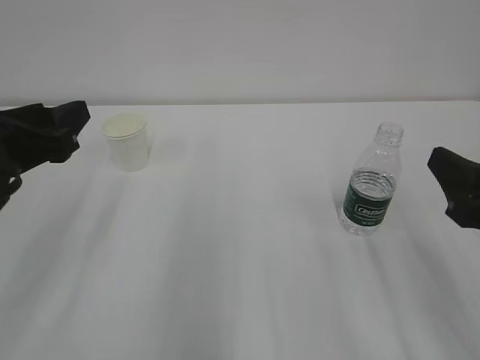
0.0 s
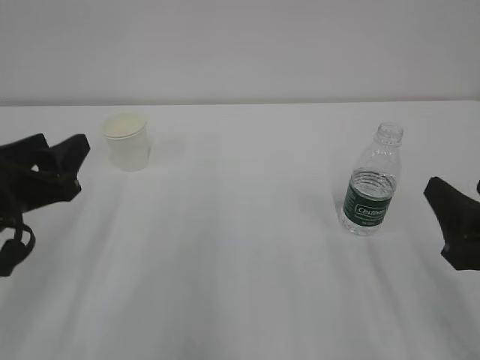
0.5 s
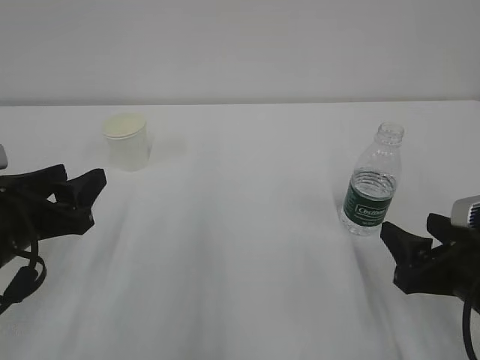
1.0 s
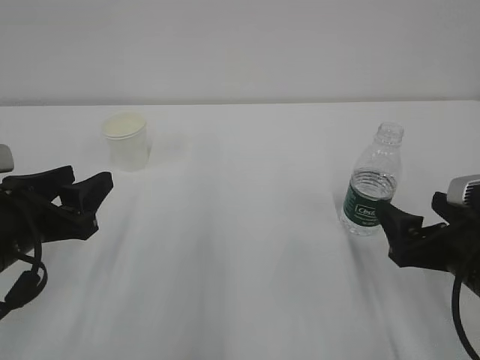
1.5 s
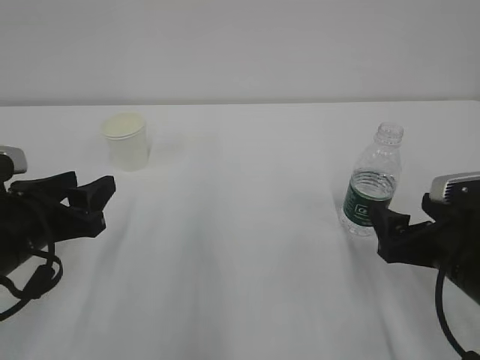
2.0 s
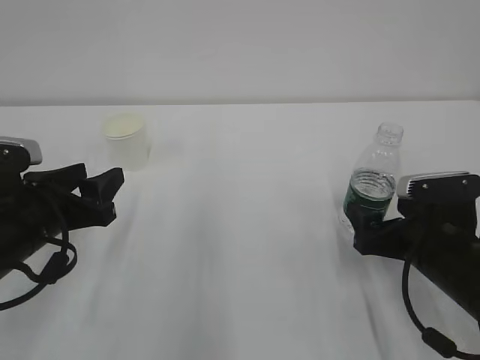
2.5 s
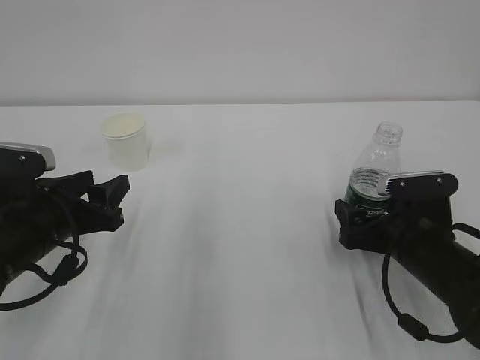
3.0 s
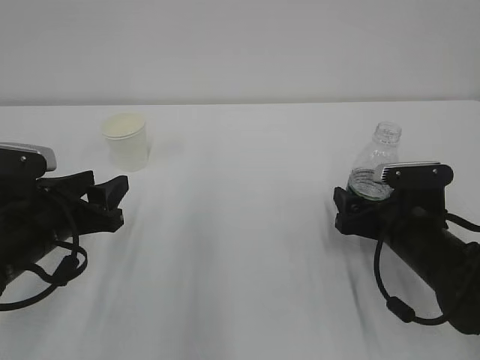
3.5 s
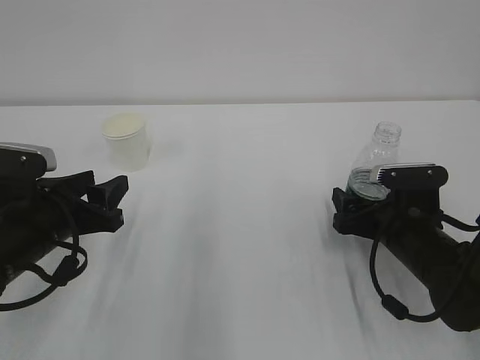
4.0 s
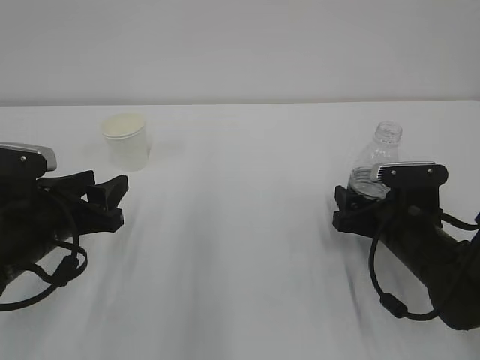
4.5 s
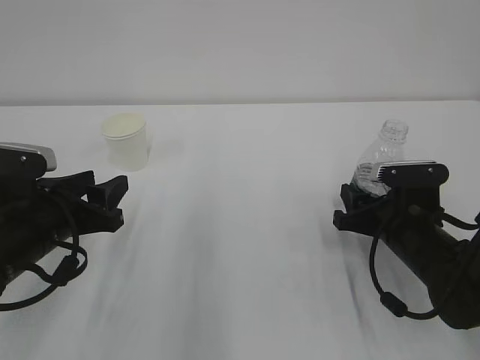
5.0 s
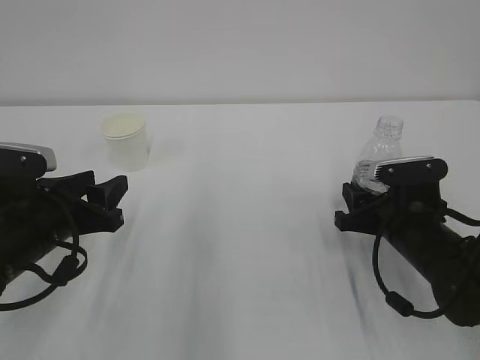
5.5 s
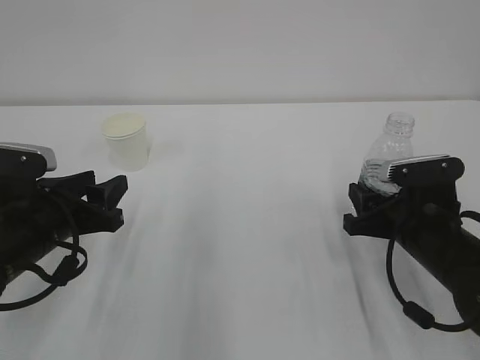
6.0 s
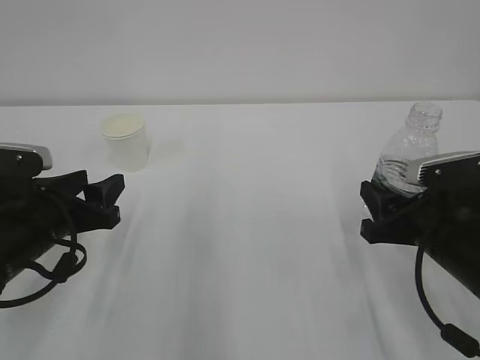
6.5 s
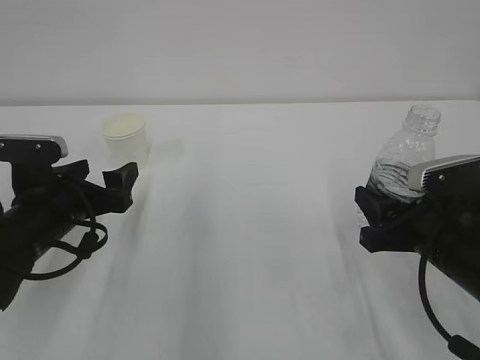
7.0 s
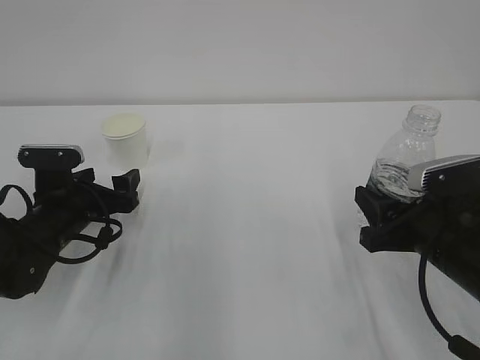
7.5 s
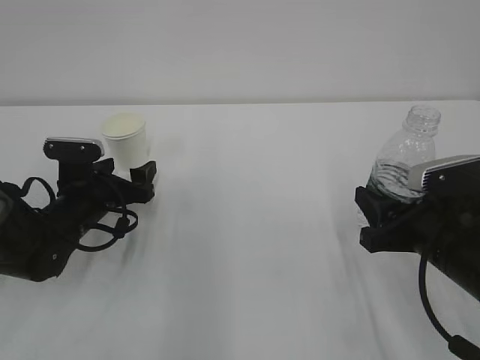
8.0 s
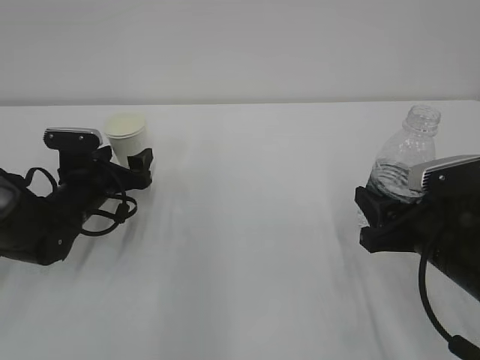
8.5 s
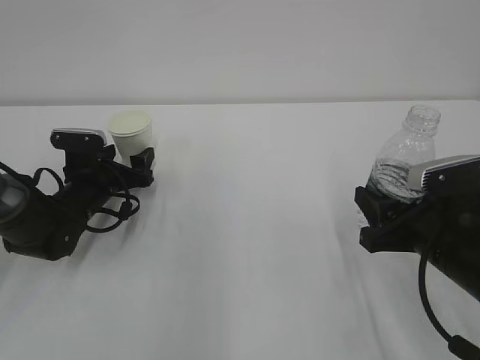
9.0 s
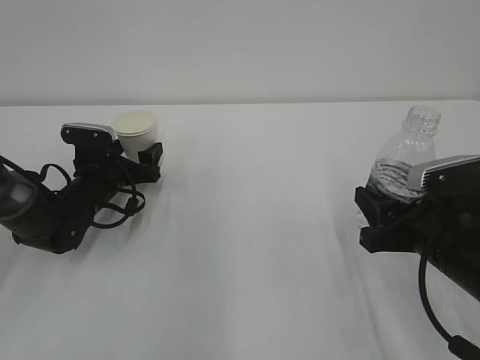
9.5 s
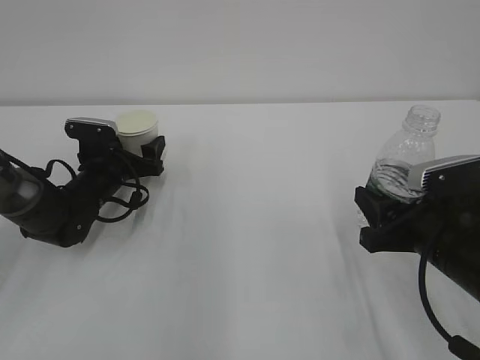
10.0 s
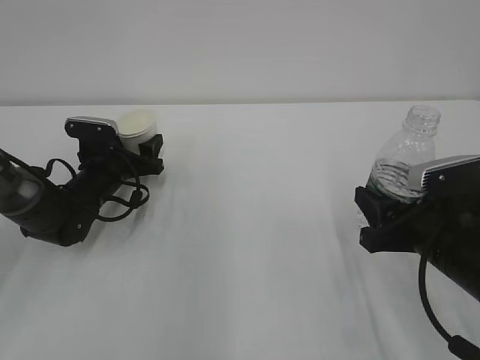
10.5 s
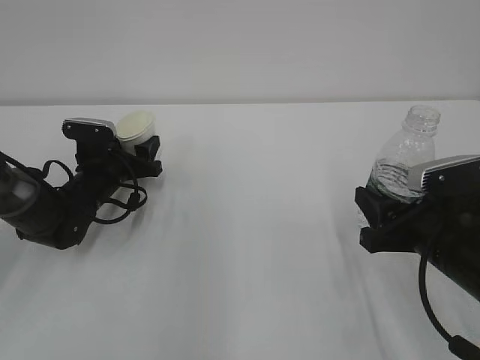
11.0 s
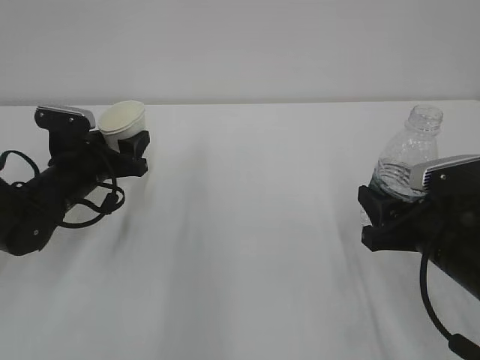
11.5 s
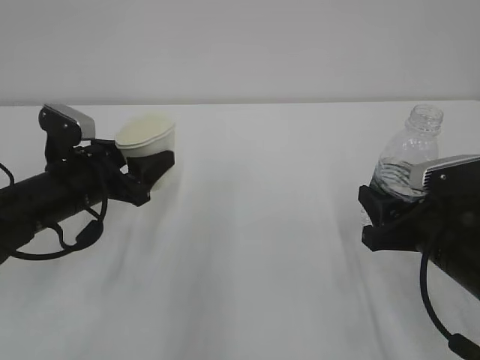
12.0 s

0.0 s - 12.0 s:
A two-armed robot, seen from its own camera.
0.0 s - 2.0 s: The grippers both shift downward by some 10 cm. The right gripper opens.
2.0 s - 4.0 s: The right gripper moves forward and downward, approximately 10 cm.
4.0 s - 6.0 s: The right gripper closes its fingers.
6.0 s - 8.0 s: The right gripper changes place by about 5 cm. Meanwhile the left gripper travels forward and downward by some 10 cm, and opens up.
8.0 s - 10.0 s: The left gripper travels forward by about 5 cm.
10.0 s - 12.0 s: The left gripper travels backward and upward by roughly 15 cm, and closes its fingers.

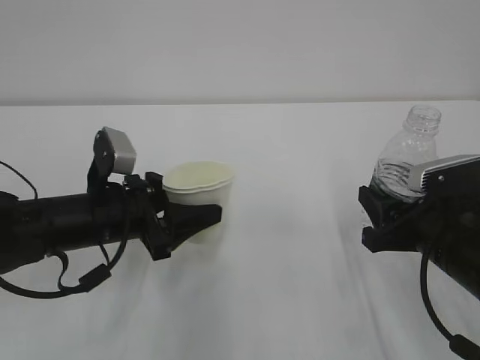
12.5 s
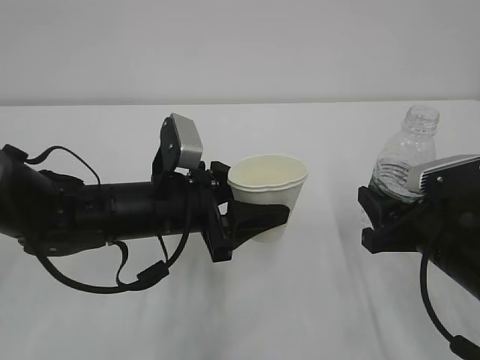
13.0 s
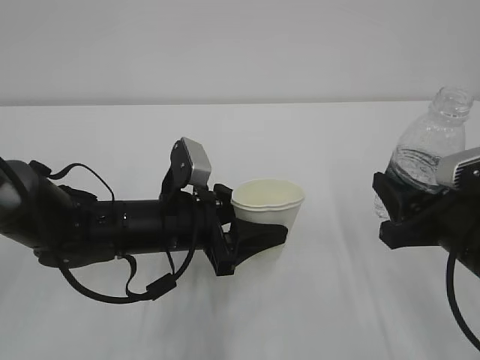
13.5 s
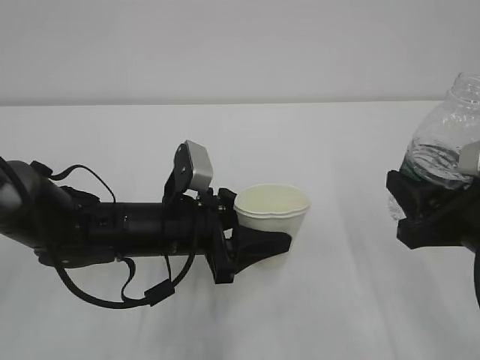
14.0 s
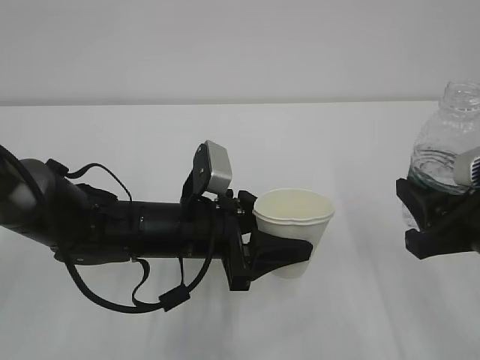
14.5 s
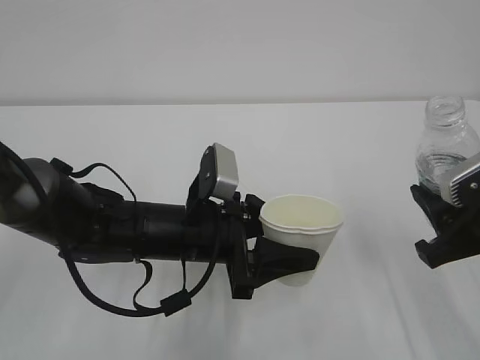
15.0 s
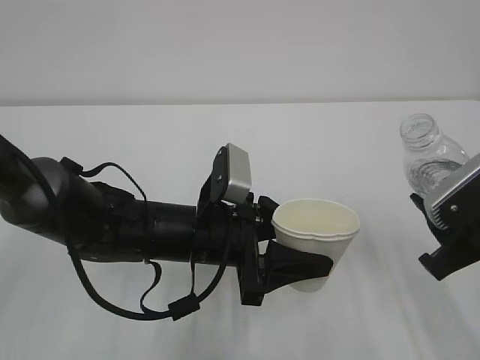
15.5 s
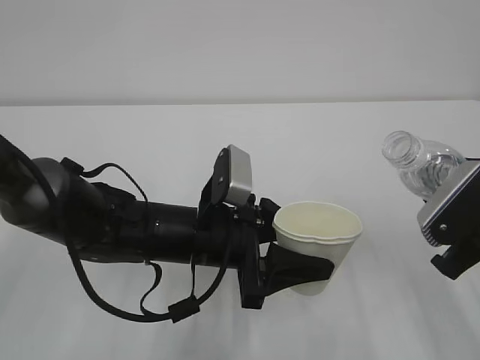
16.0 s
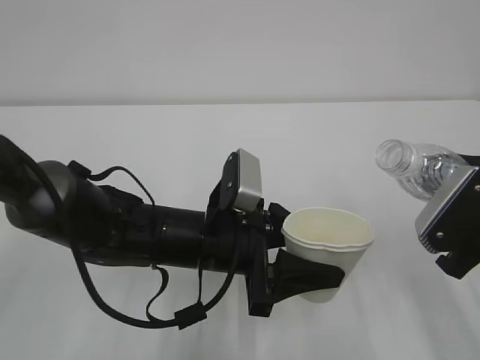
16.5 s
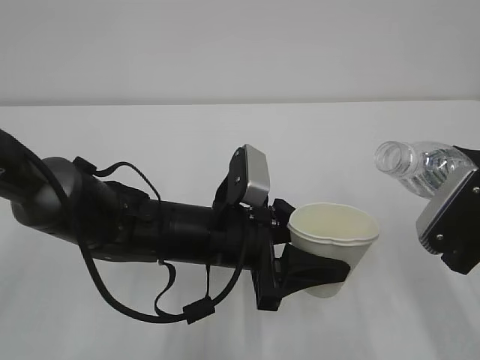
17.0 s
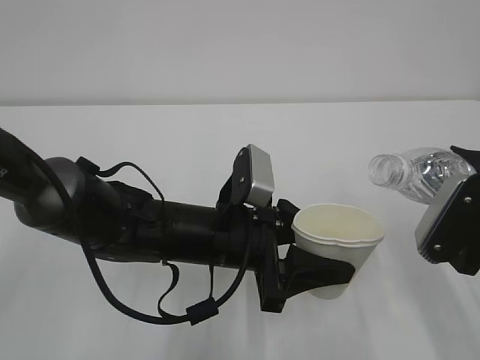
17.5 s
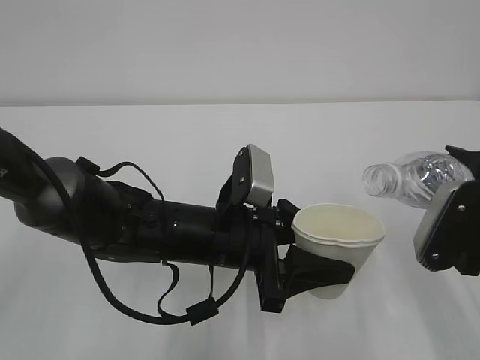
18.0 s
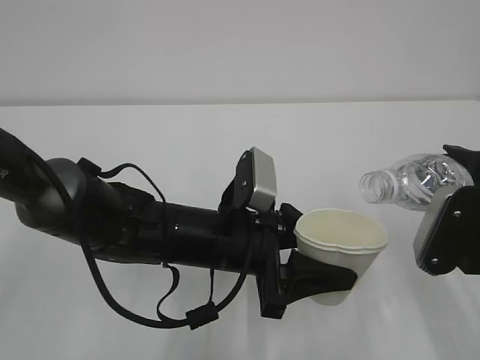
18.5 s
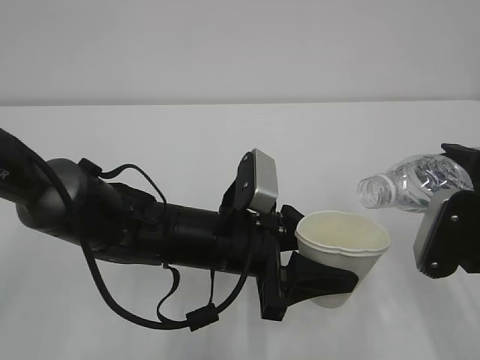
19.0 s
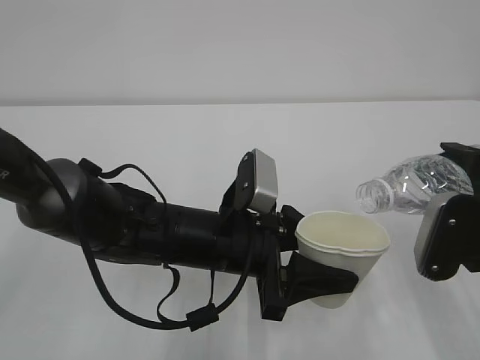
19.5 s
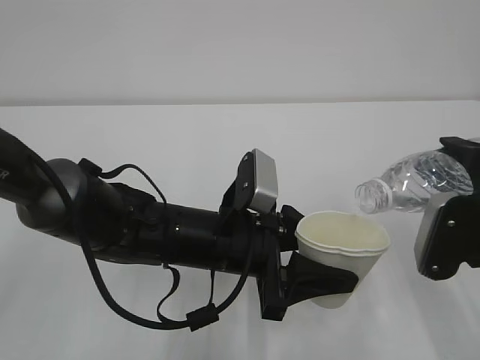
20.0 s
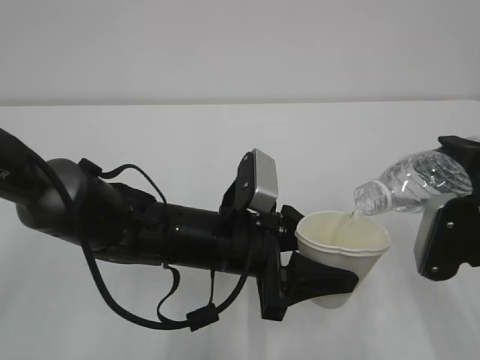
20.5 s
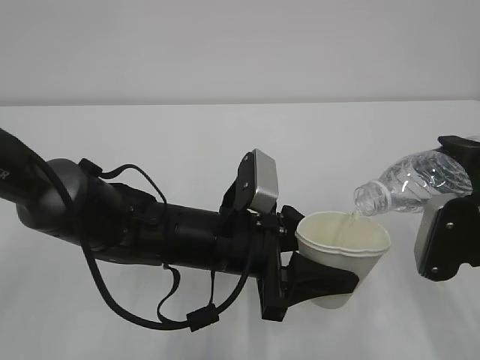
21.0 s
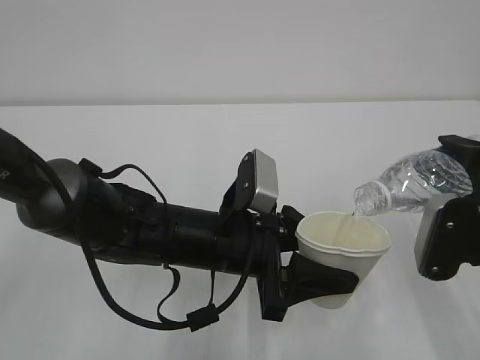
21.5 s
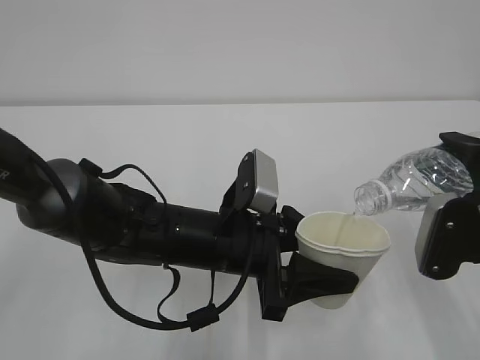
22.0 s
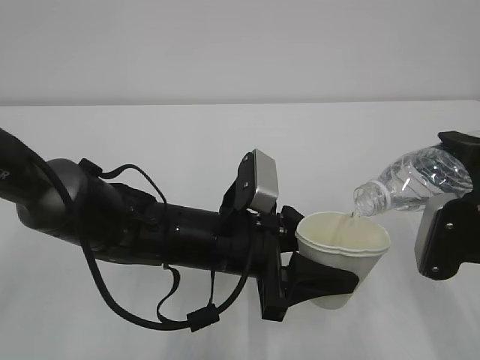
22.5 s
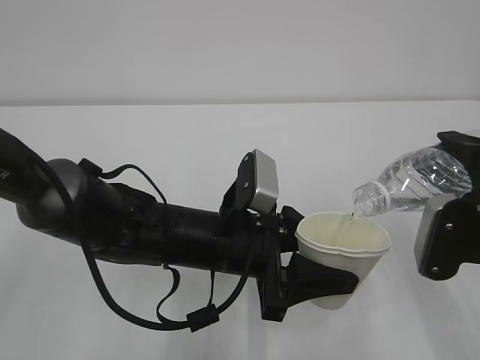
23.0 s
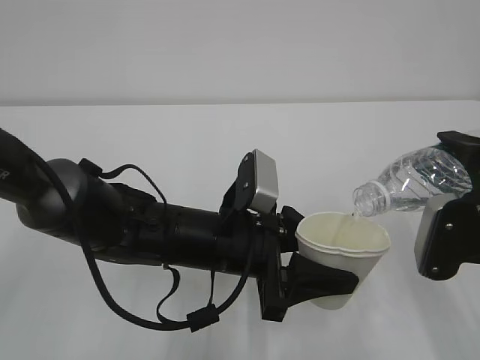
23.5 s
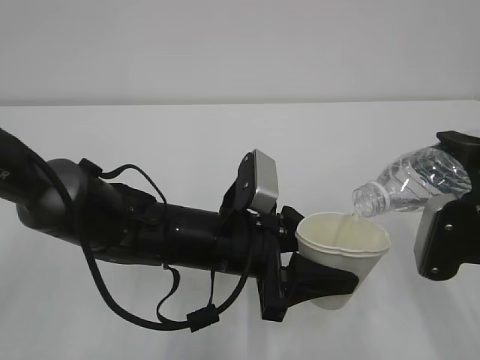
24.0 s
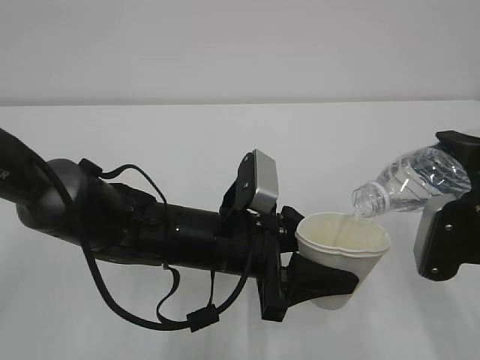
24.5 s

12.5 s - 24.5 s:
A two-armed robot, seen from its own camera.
12.5 s - 14.5 s: The right gripper heads upward, covering some 5 cm. Meanwhile the left gripper heads to the right, covering approximately 10 cm.
16.5 s - 18.5 s: The grippers make only small movements.
18.5 s - 20.5 s: The grippers stay close to where they were, moving slightly.
20.5 s - 24.5 s: Neither gripper changes place.

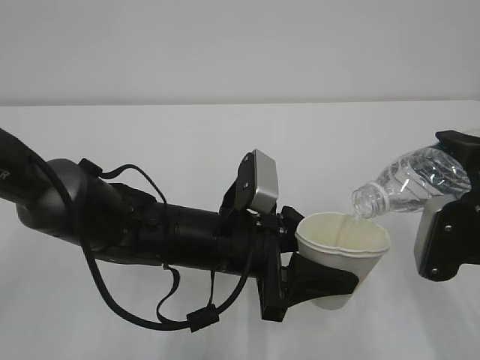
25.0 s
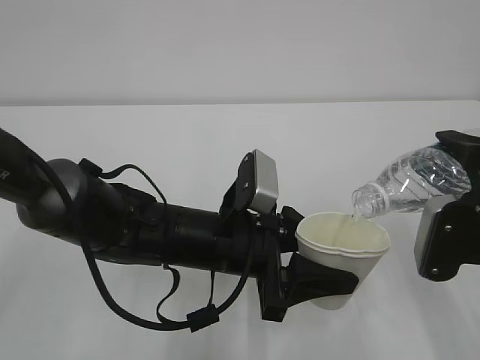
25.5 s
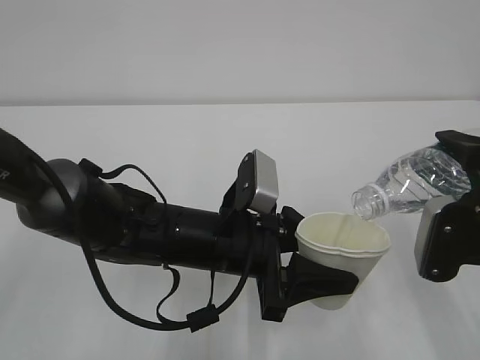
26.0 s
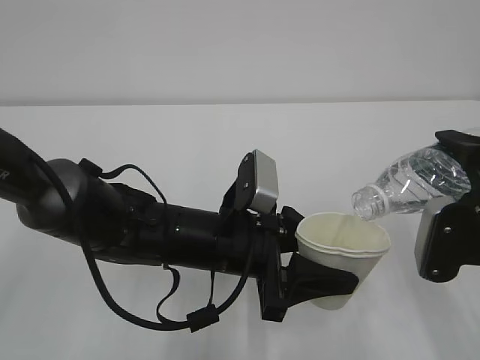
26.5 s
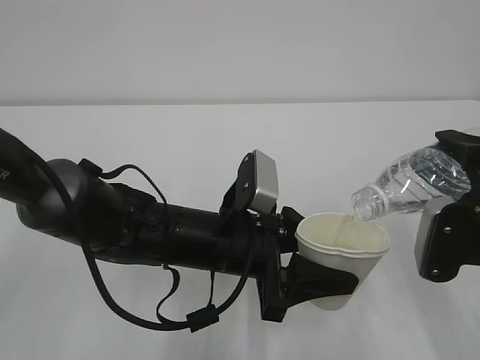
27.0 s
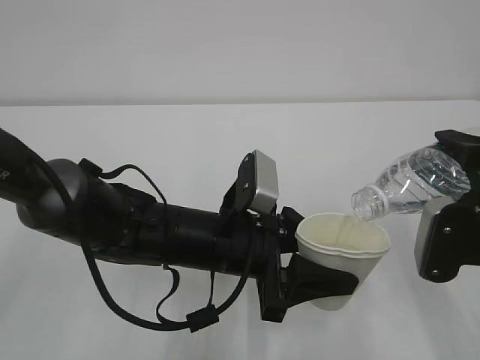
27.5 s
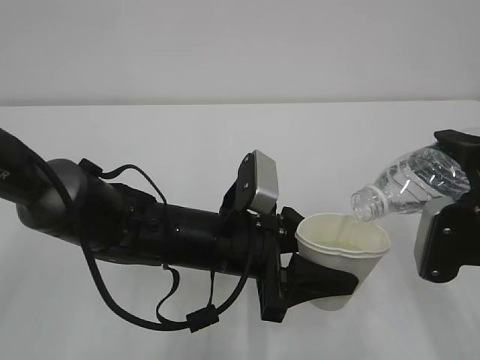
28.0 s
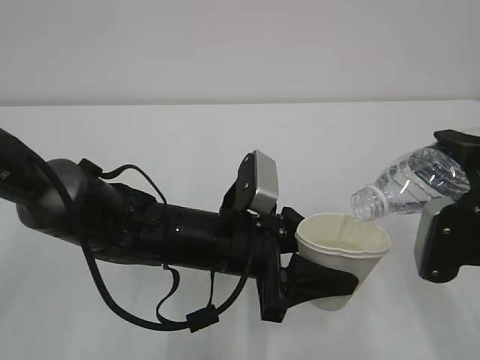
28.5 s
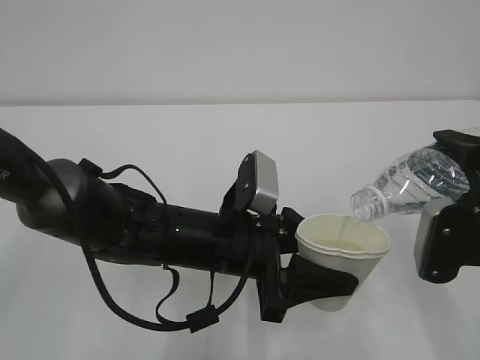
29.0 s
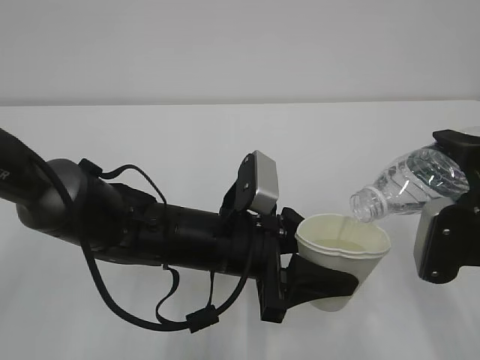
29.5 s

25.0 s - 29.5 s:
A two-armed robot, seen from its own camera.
25.0 s - 29.5 s: The two grippers keep their place.
